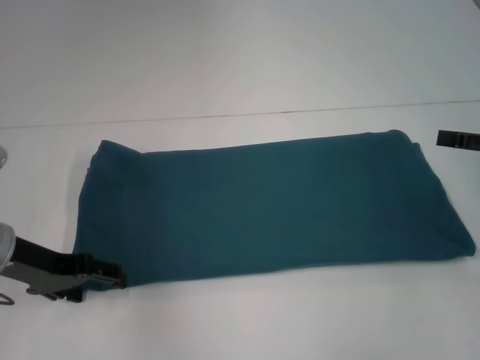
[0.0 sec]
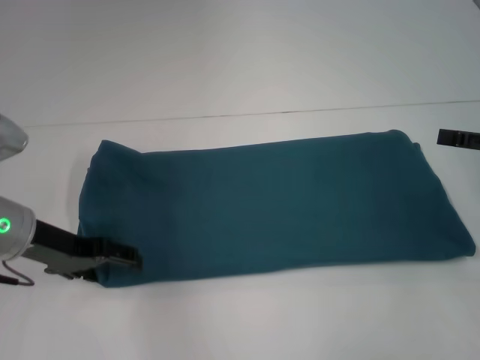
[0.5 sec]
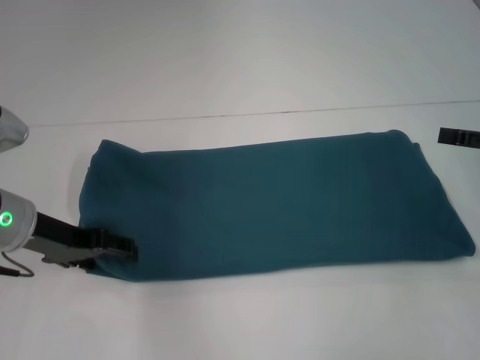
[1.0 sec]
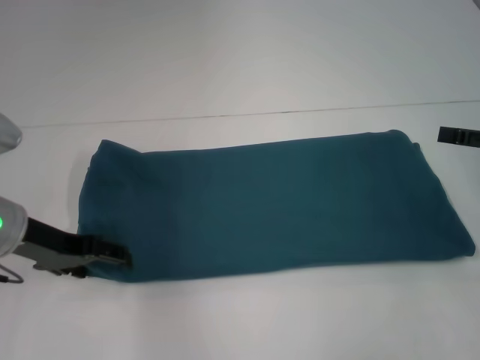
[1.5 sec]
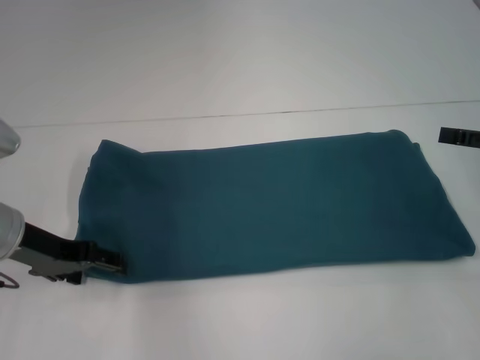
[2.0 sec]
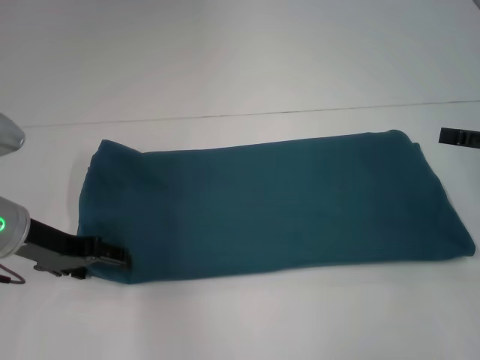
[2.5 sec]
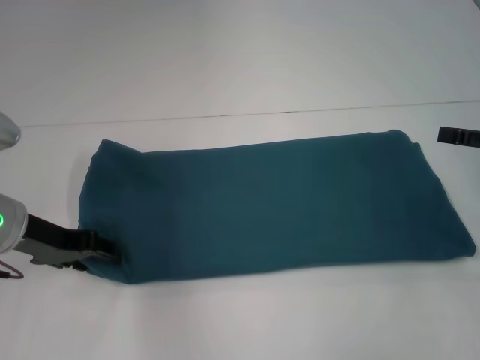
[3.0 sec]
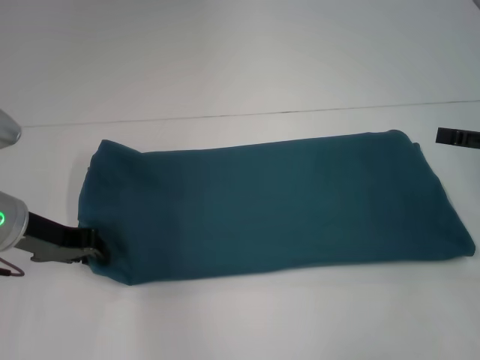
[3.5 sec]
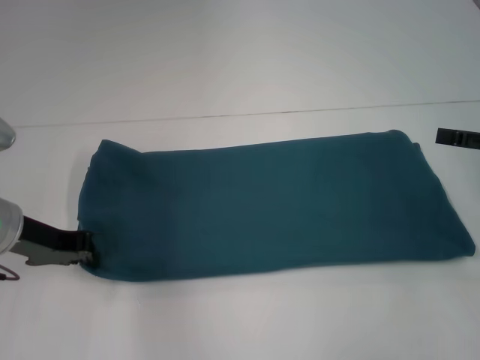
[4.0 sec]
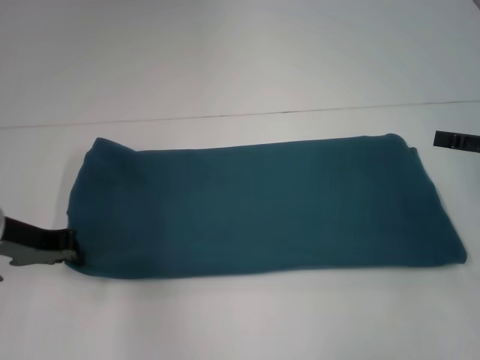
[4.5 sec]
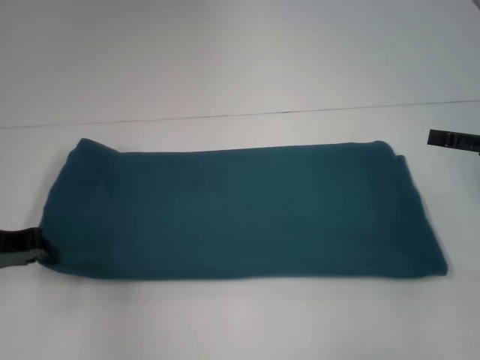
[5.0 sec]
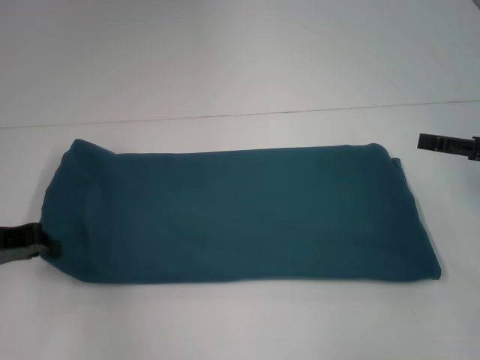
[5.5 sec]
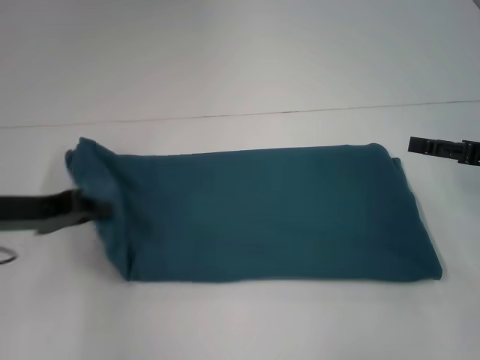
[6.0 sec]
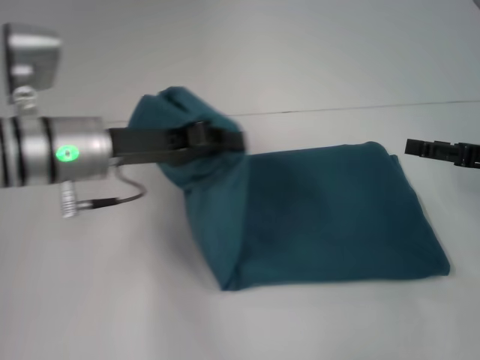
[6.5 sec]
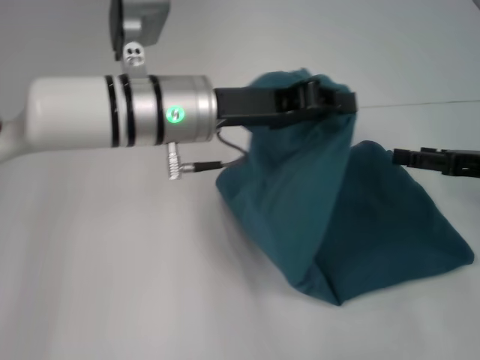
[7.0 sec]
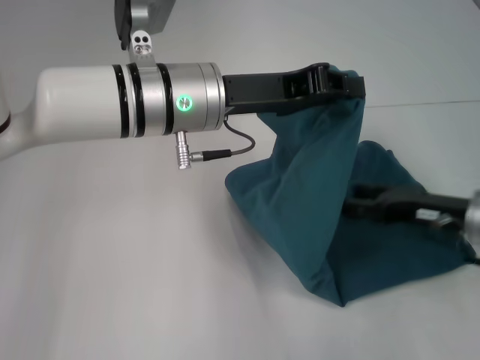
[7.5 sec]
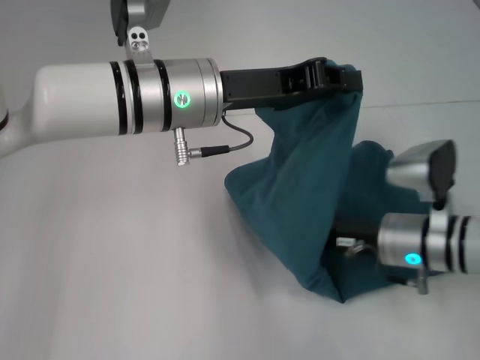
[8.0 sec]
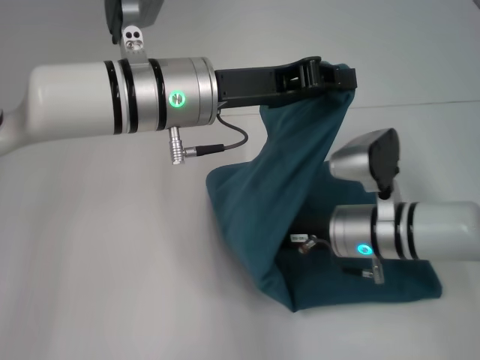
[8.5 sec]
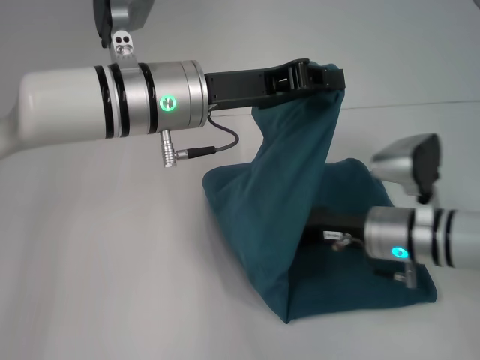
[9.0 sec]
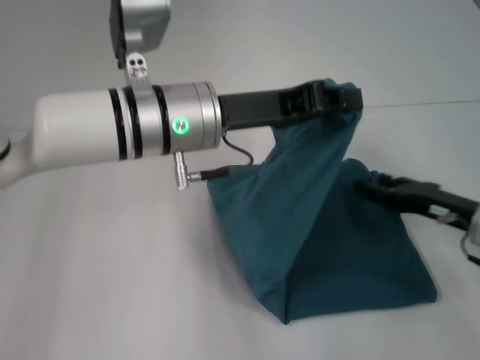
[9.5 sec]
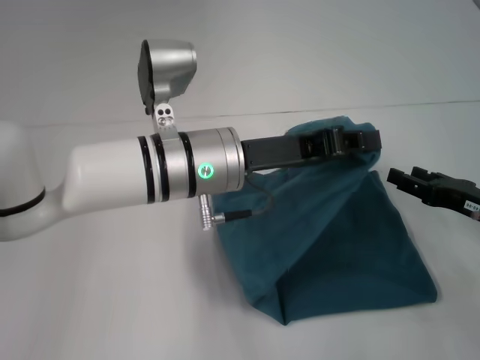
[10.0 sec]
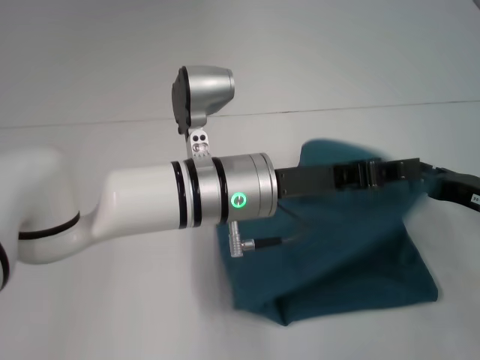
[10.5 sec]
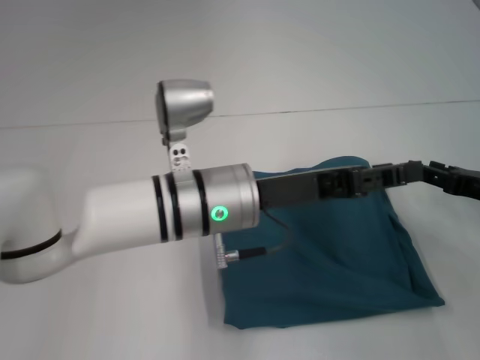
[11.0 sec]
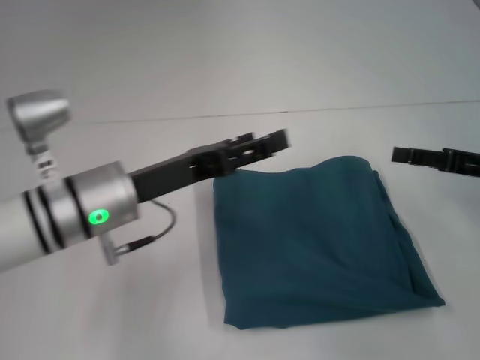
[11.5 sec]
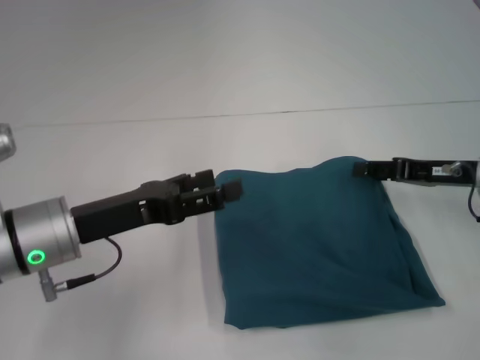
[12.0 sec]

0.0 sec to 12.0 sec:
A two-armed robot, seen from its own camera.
Step, 0.0 sec to 9.0 sec: Press the middle of the clothes with your right hand.
Step, 9.5 sec to 10.5 sec: Fold the clothes to the left.
0.0 sec to 2.0 sec: The grippers move only a little.
2.0 sec to 4.0 sec: The left gripper closes.
6.0 sec to 8.0 sec: The left gripper heads to the right, covering approximately 20 cm. The right gripper travels to the left and downward by roughly 15 cm.
8.0 sec to 10.0 sec: The left gripper goes roughly 5 cm downward. The right gripper goes approximately 10 cm to the right, and closes, then reopens.
10.0 sec to 12.0 sec: The left gripper goes about 15 cm to the left, and opens its fingers. The right gripper shifts approximately 5 cm forward.

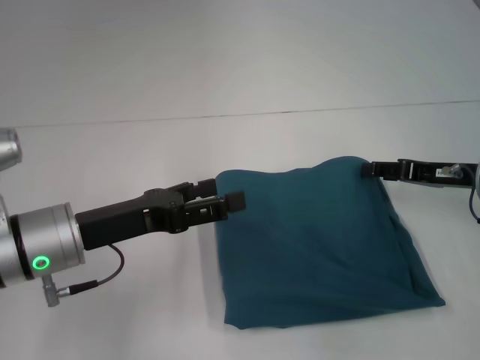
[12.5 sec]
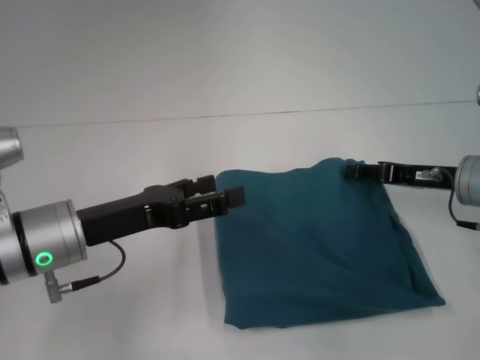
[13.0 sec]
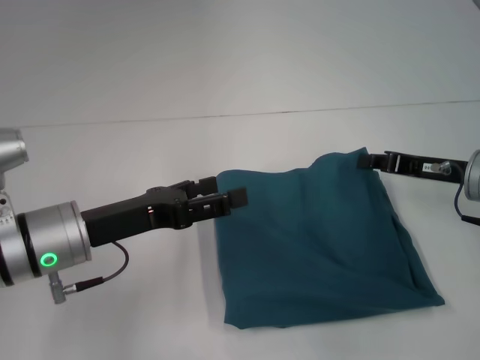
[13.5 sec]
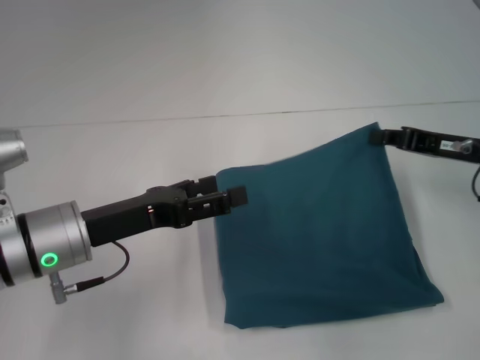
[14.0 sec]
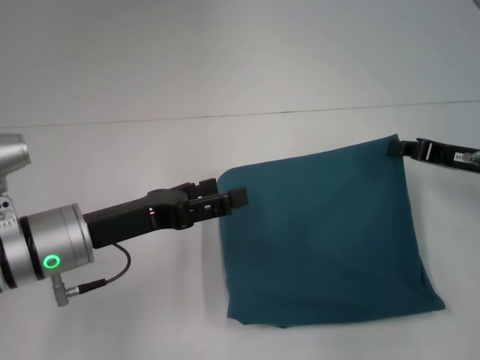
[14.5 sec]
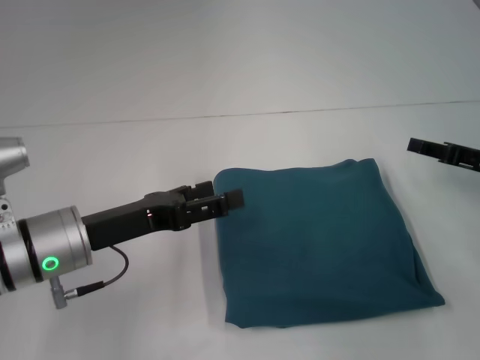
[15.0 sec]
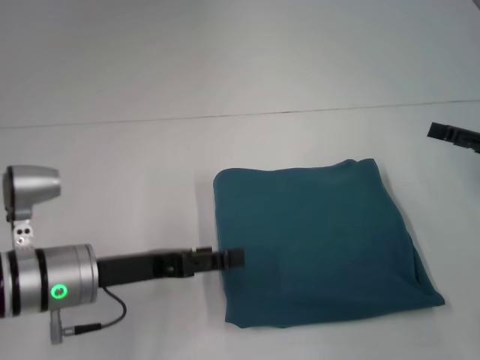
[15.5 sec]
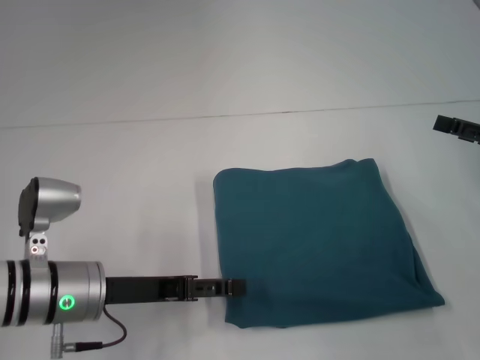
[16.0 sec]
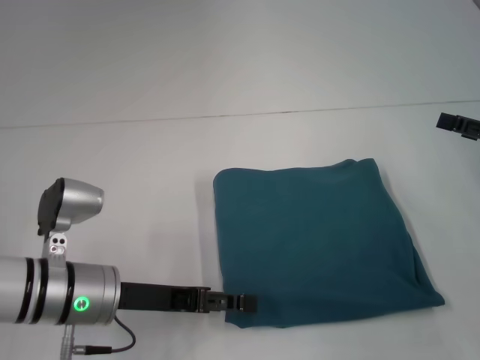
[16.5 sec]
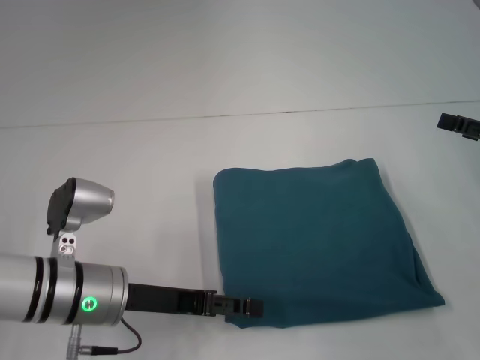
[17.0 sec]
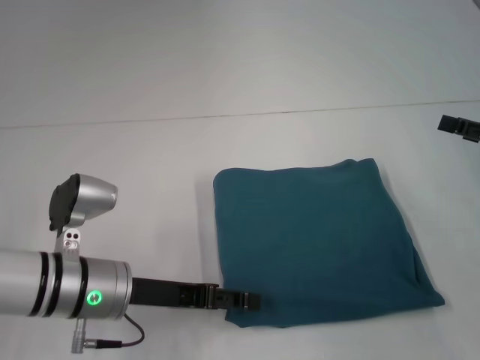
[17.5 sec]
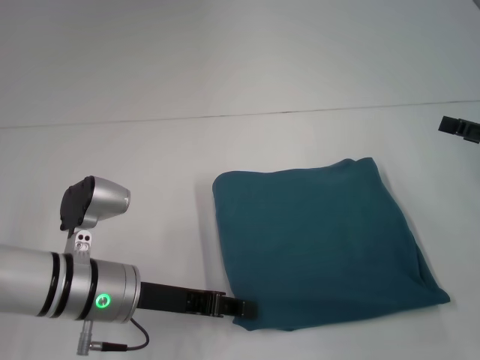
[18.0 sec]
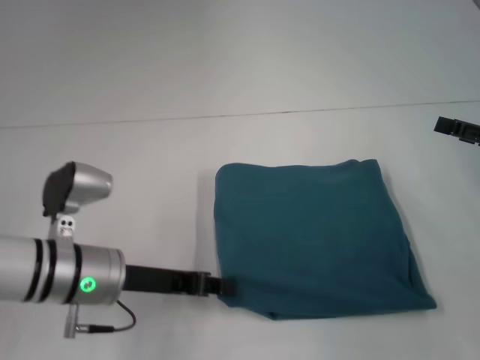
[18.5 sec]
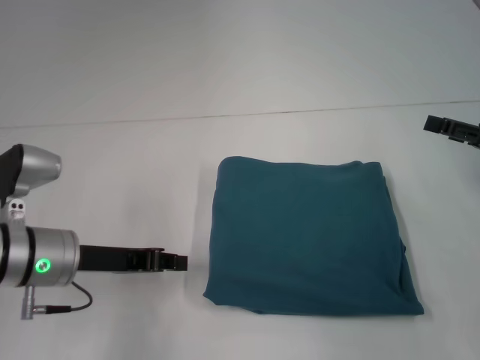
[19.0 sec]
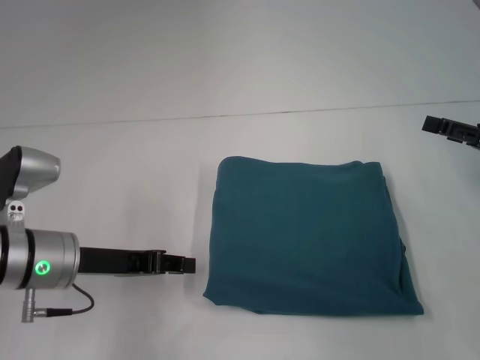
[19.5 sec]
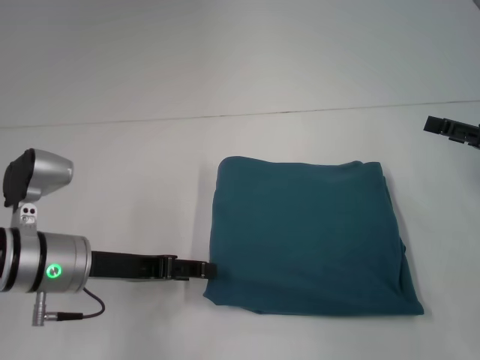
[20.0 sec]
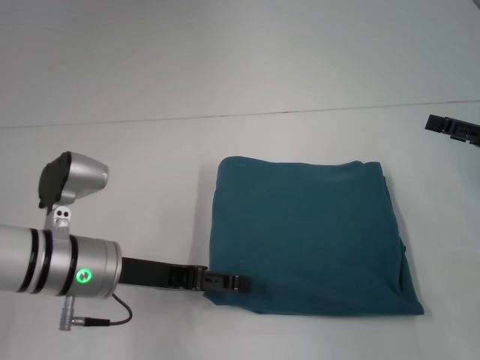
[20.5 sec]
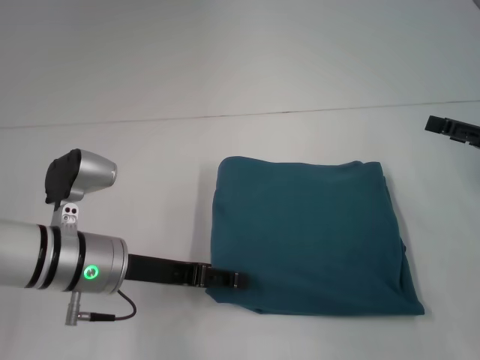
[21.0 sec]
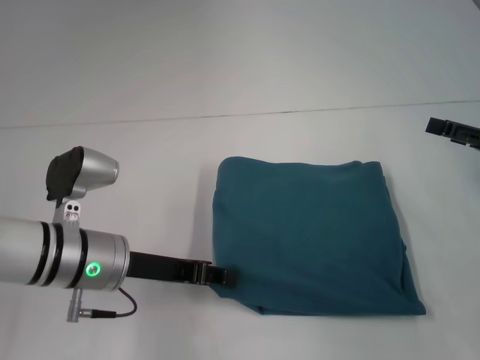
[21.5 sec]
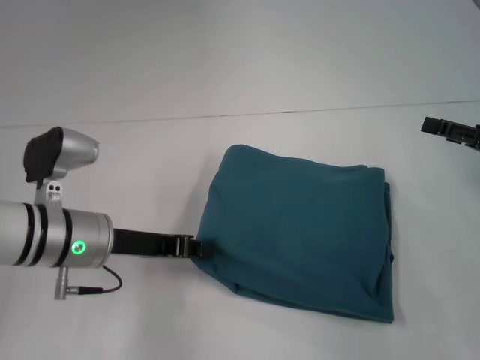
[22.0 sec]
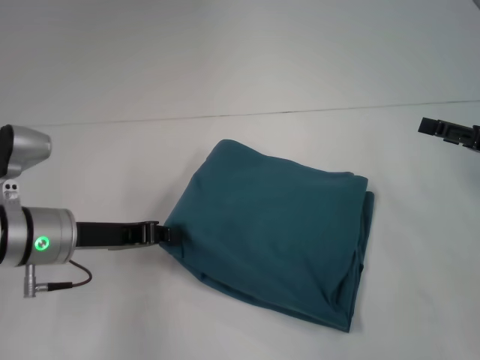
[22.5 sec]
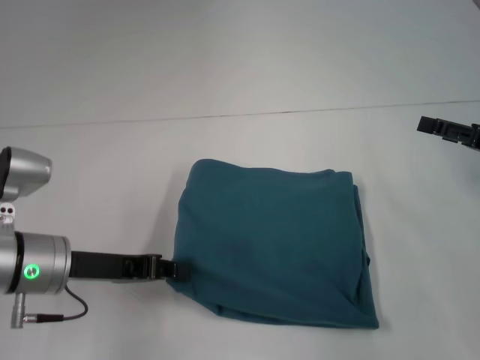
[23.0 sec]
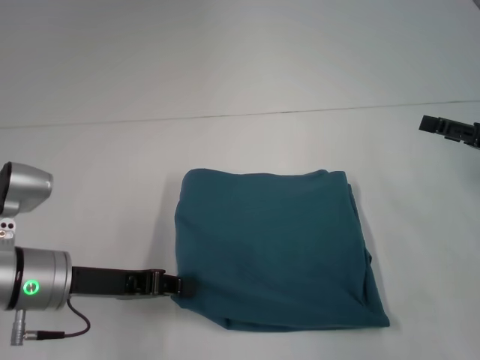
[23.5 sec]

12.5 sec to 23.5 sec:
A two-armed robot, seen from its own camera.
12.5 sec to 14.5 sec: The right gripper closes.
14.5 sec to 16.0 sec: The right gripper shifts approximately 5 cm to the right, and opens its fingers.
16.0 sec to 18.0 sec: The left gripper closes.
18.0 sec to 20.0 sec: The left gripper changes place by about 5 cm, and closes, then opens again.
20.0 sec to 21.5 sec: The left gripper opens, then closes once more.
21.5 sec to 23.5 sec: The left gripper shifts some 5 cm to the left, and closes its fingers.

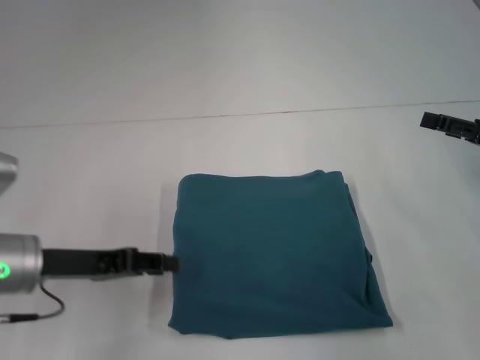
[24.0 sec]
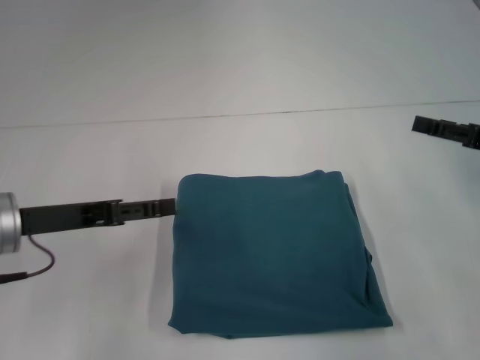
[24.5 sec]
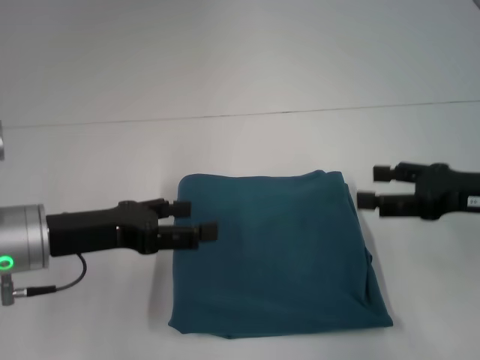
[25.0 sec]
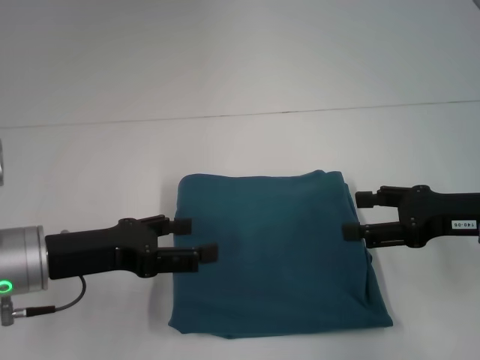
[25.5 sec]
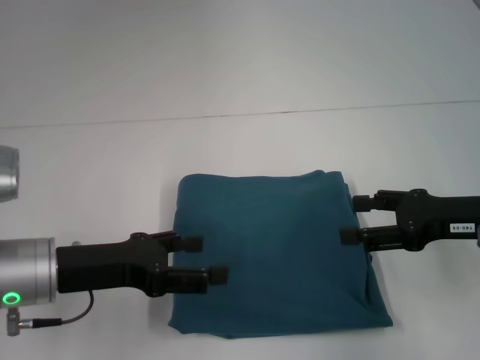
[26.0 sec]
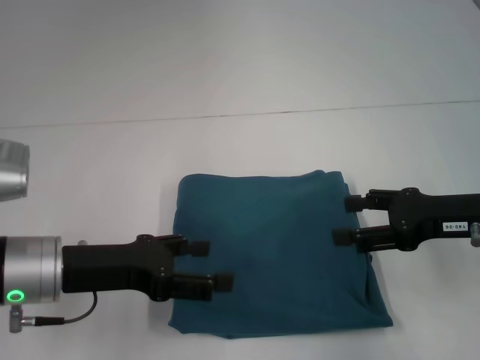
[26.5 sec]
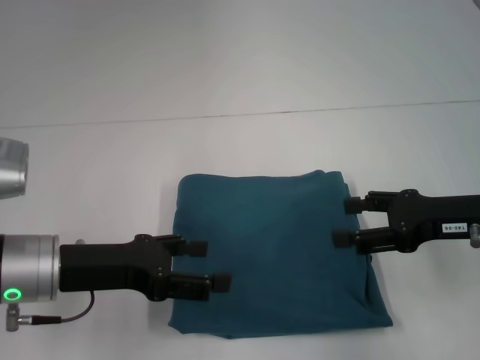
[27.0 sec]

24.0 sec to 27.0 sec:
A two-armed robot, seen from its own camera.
24.0 sec to 25.5 sec: The right gripper moves to the left, about 5 cm, while the left gripper opens.
25.5 sec to 27.0 sec: The grippers stay close to where they were, moving slightly.
